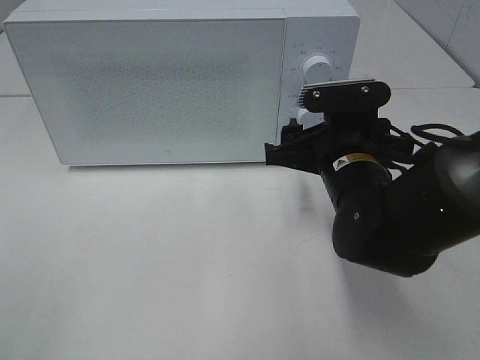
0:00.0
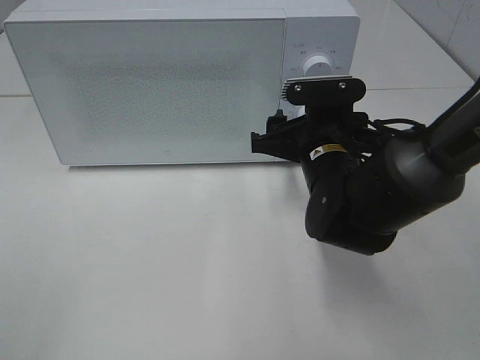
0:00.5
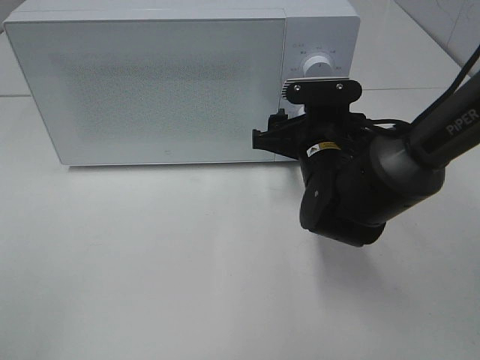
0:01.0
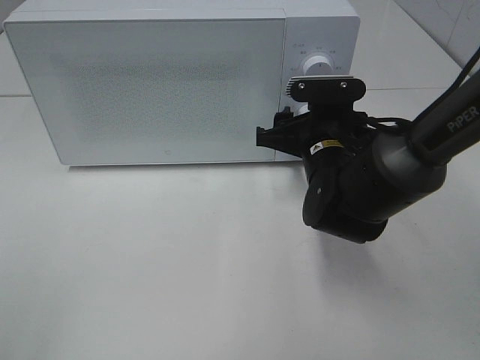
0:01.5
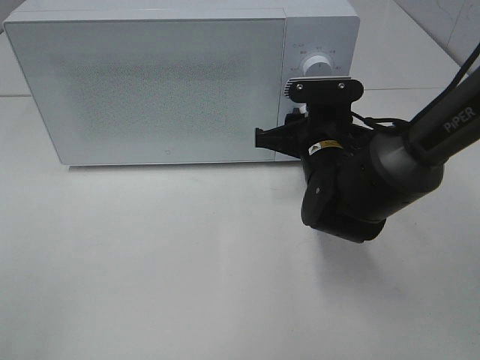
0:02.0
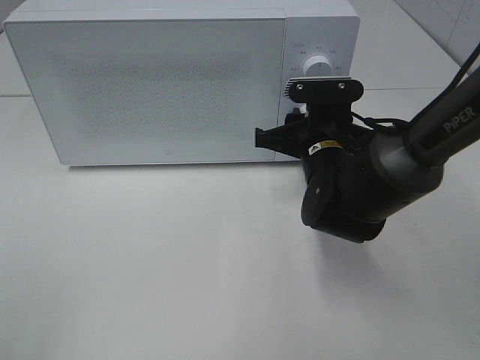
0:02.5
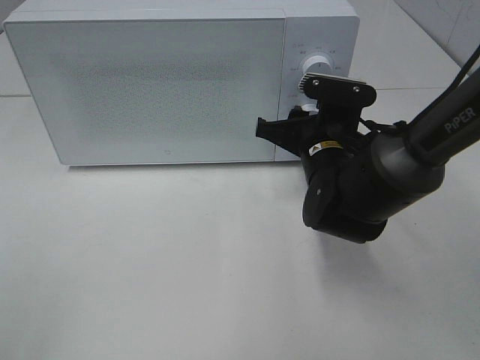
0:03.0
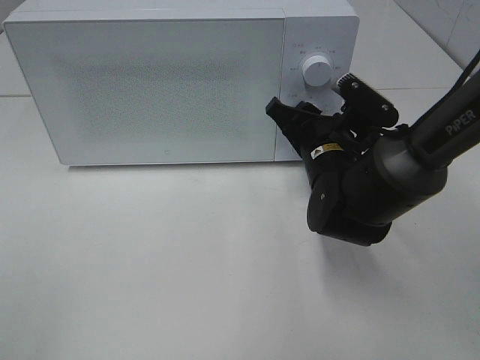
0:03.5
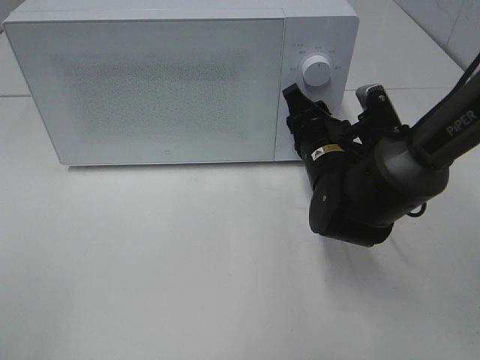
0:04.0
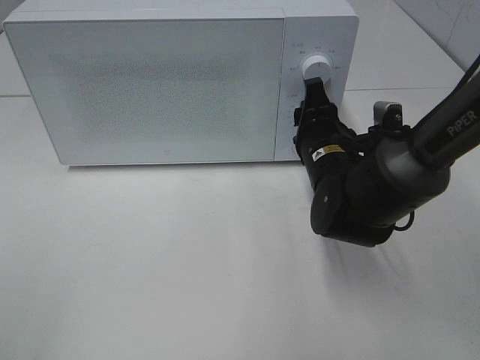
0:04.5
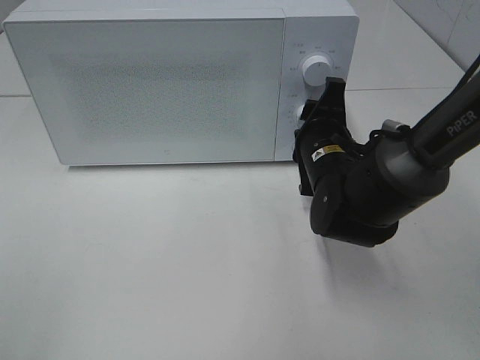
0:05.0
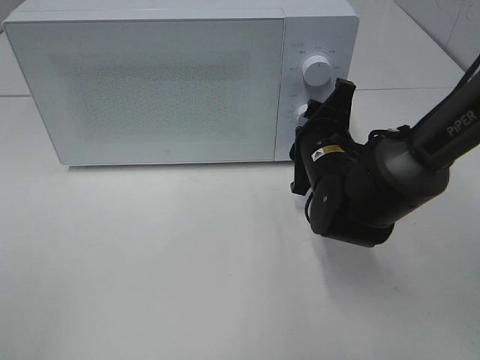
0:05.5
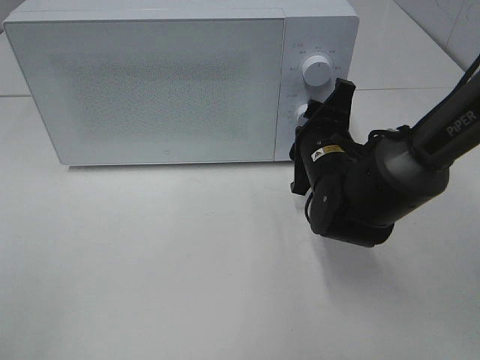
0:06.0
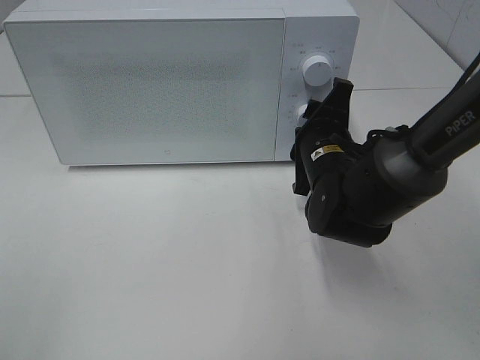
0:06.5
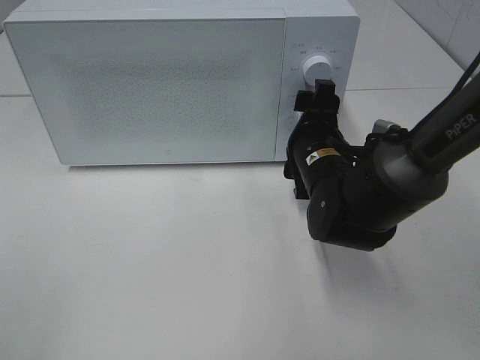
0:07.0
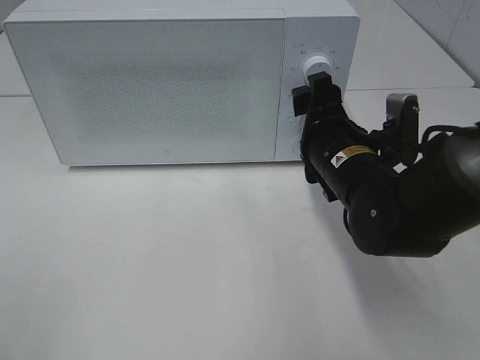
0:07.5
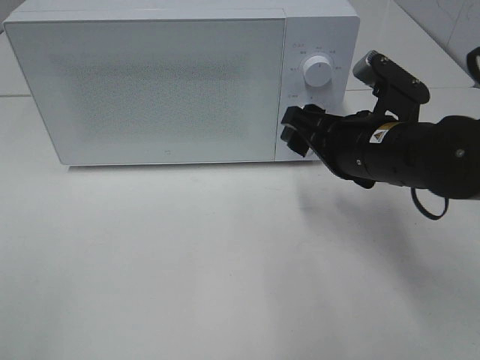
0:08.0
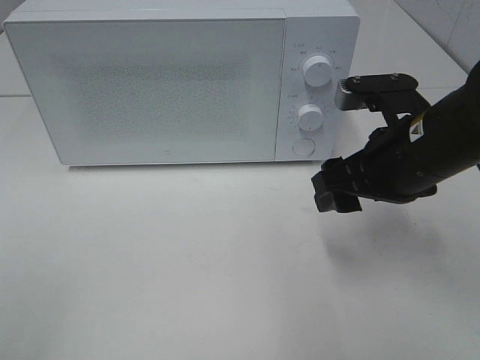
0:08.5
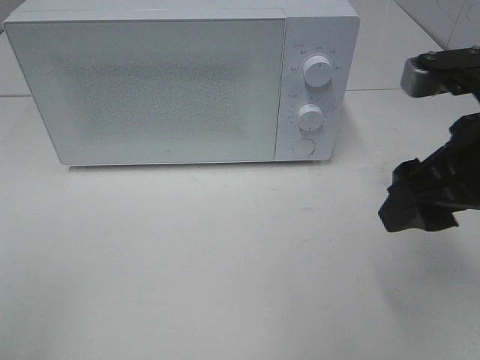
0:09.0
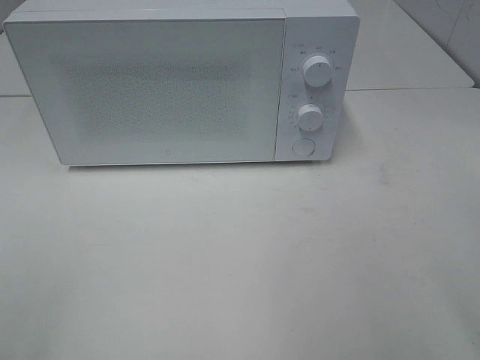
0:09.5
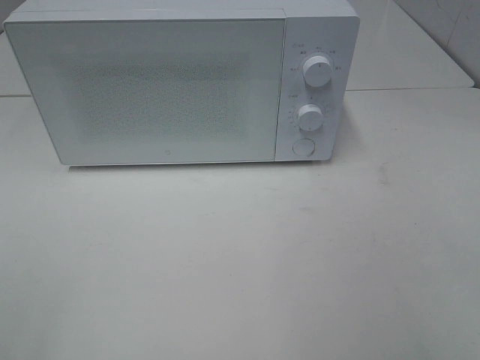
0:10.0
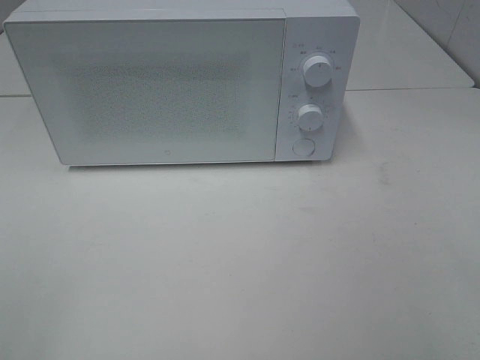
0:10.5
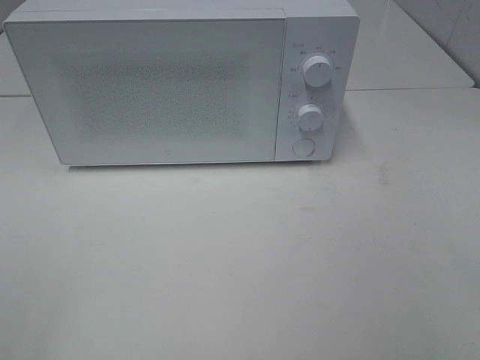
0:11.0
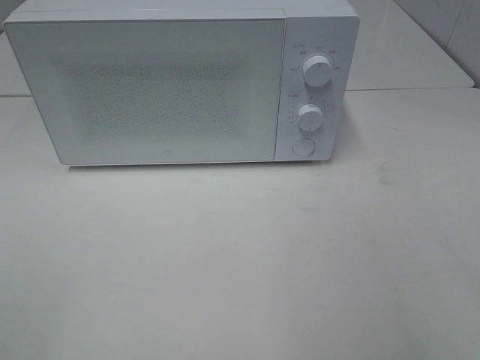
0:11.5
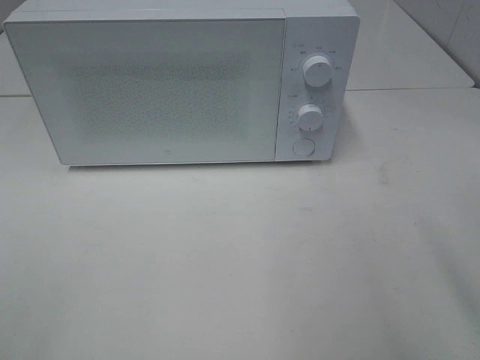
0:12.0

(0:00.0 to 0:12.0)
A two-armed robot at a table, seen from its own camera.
Task of the whole recording: Heat the burger.
Step, 0:00.0 - 0:06.5: Right hand: twist timer button.
0:00.0 - 0:02.0: The right gripper heads forward, covering approximately 5 cm, and closes its fingers.
0:06.0 - 0:08.0: The right gripper shifts about 10 cm upward and backward.
0:08.0 - 0:10.0: The right gripper shifts approximately 30 cm backward, to the right and upward.

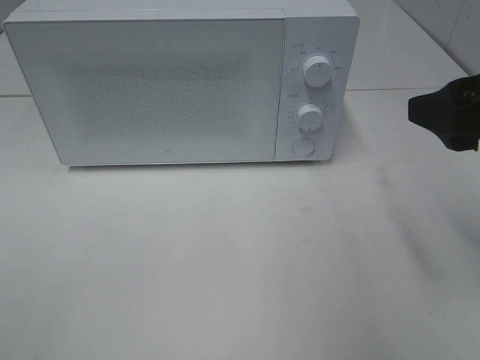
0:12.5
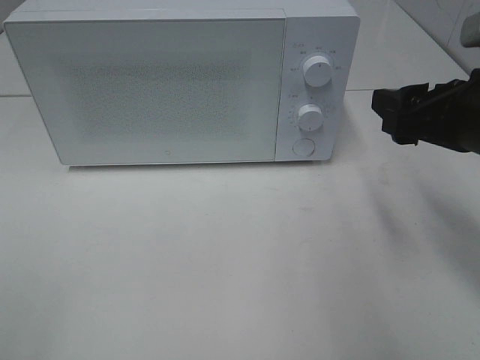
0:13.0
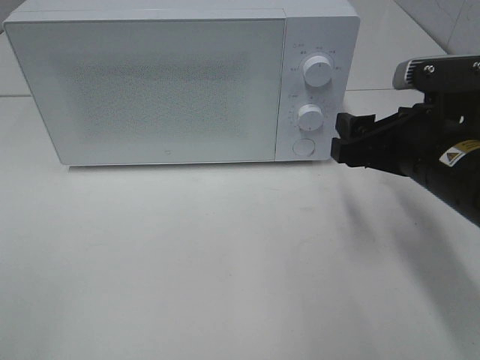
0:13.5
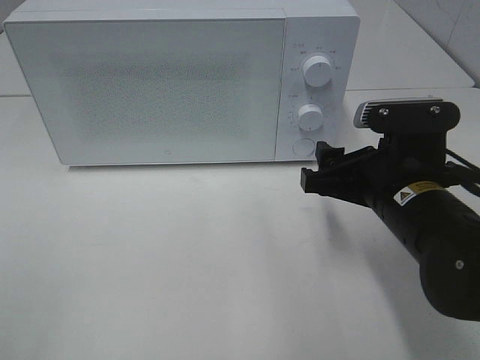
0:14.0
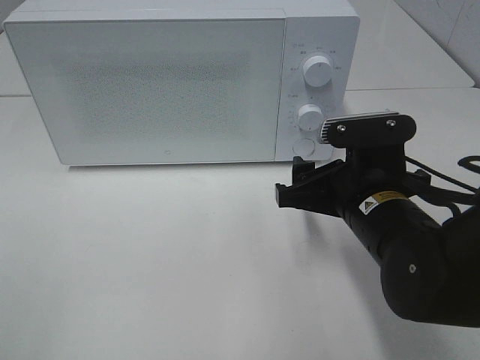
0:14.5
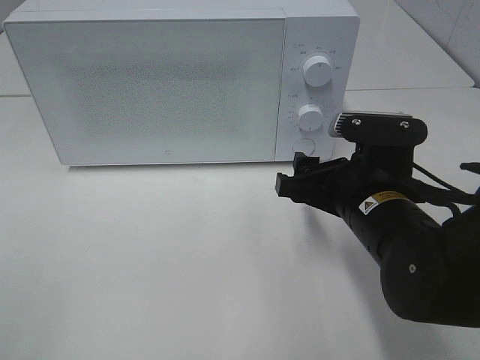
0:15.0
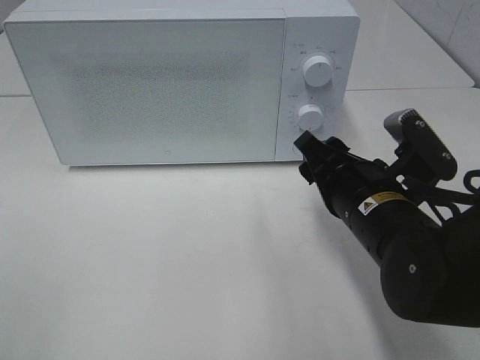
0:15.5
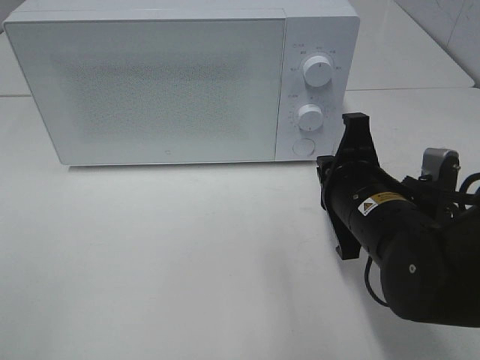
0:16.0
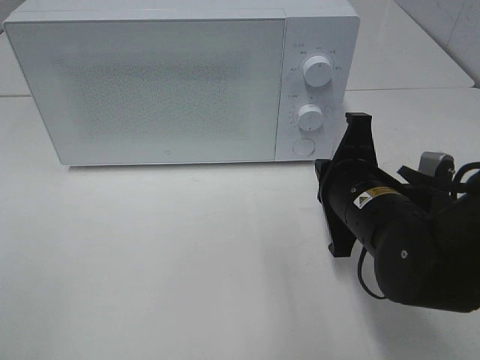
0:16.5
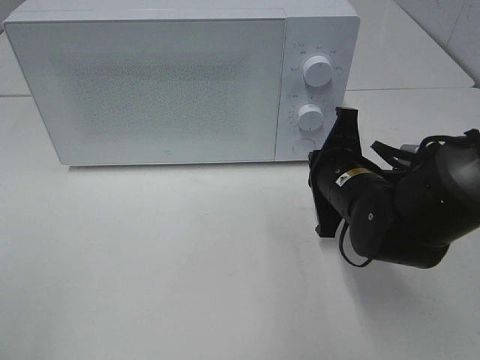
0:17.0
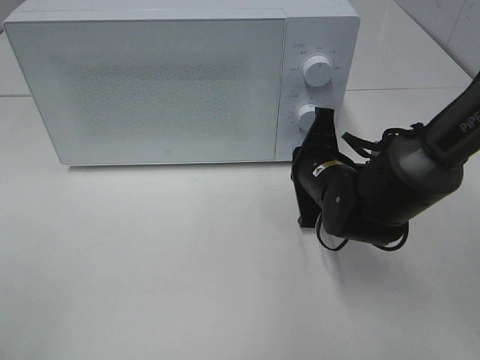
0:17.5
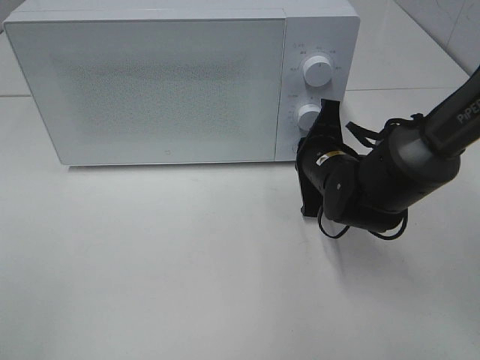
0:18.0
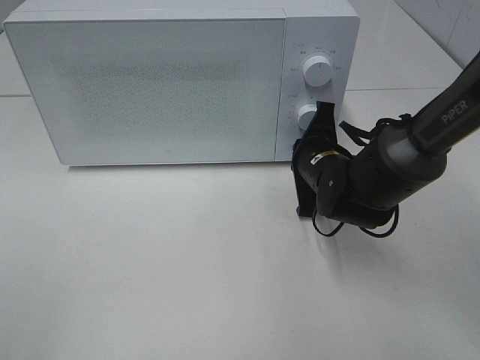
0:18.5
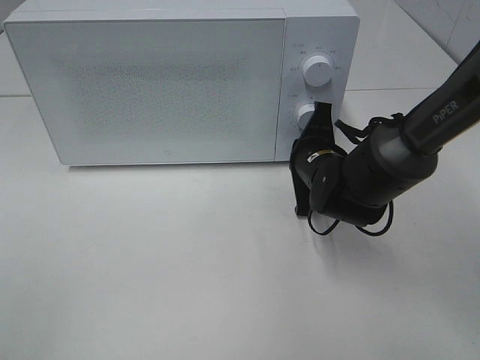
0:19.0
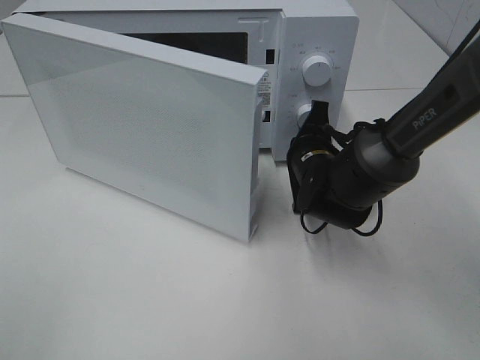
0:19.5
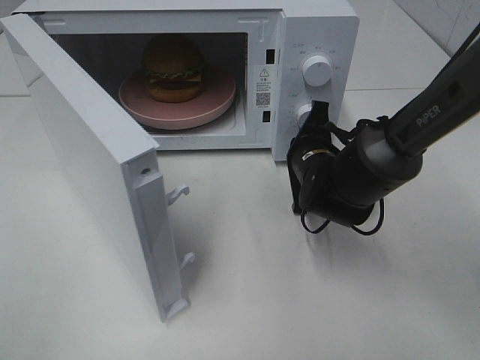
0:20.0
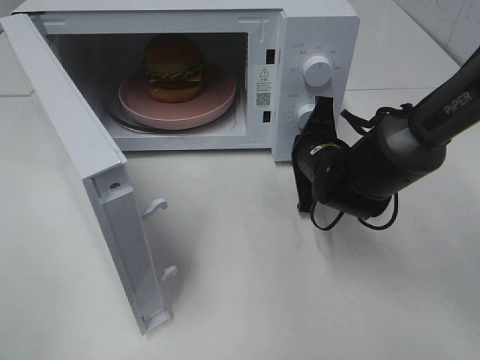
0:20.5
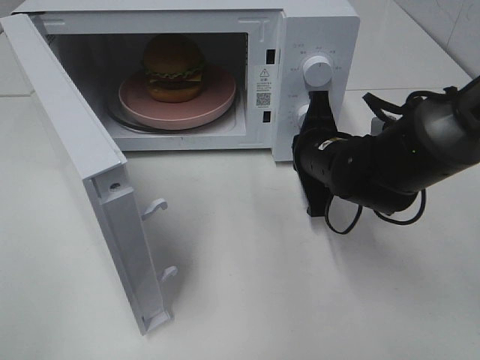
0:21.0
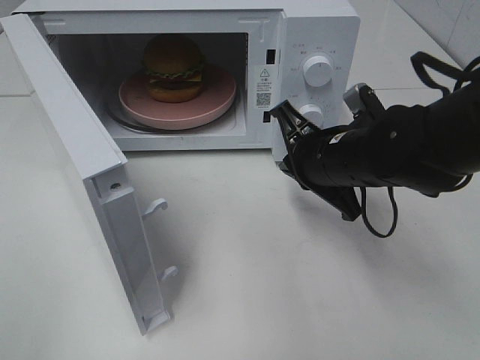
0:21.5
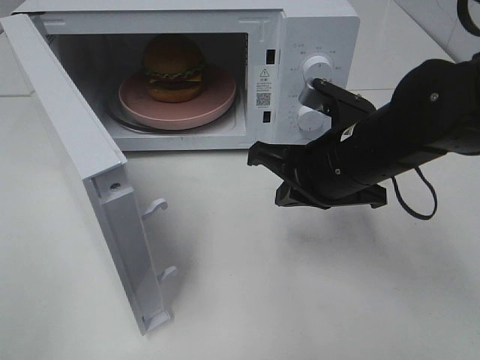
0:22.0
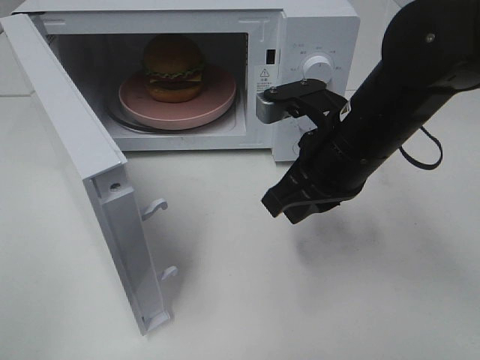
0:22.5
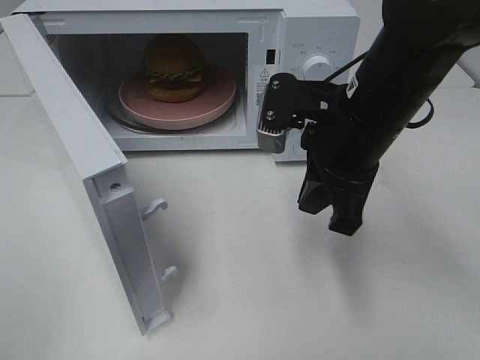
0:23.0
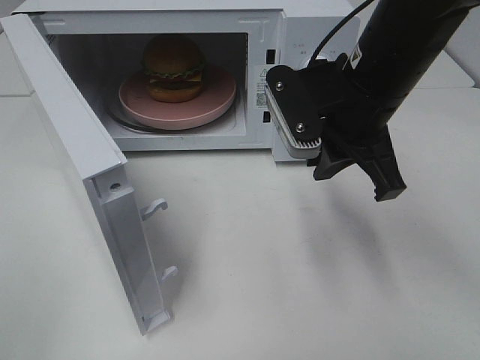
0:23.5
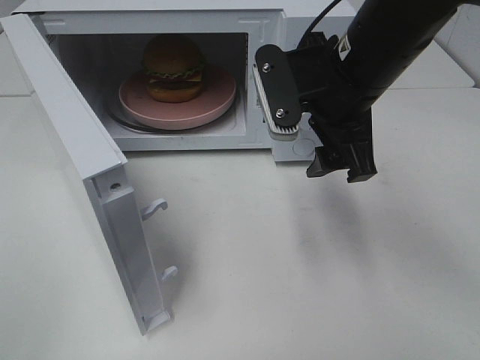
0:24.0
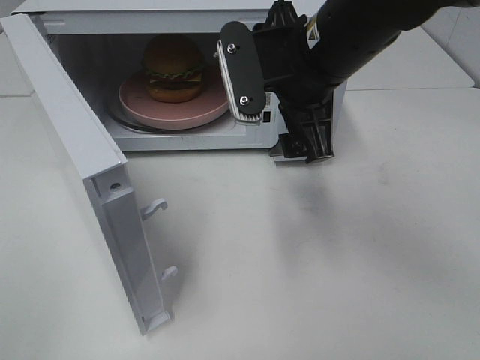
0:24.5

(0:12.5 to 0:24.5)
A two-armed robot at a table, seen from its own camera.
Task of the whole recording: Heat the burger.
Step, 0:12.5 - 0:21.0: Right hand: press the switch.
0:12.5 - 0:14.5: The right gripper shifts roughly 15 cm downward and to the left.
0:14.5 - 0:16.5: The right gripper closes.
0:16.5 - 0:18.5: The right gripper travels forward by about 10 cm.
0:20.5 - 0:22.5: The right gripper heads upward and backward, covering approximately 15 cm.
0:22.5 - 0:24.5: The right gripper moves upward, some 5 cm, and opens.

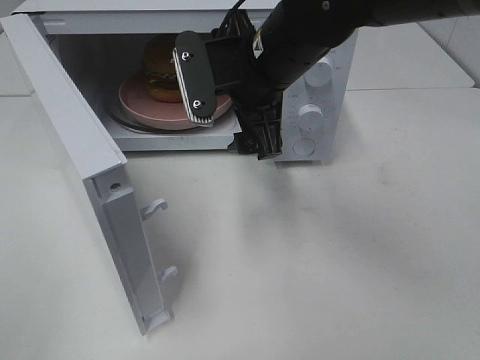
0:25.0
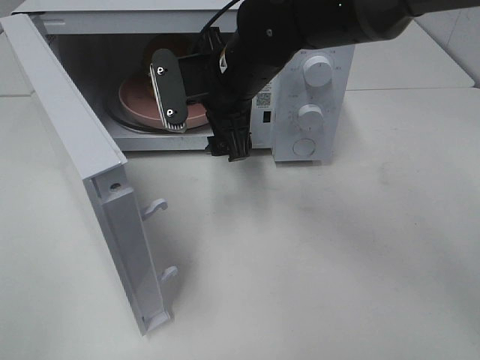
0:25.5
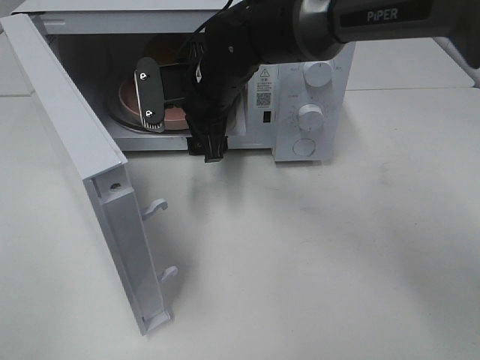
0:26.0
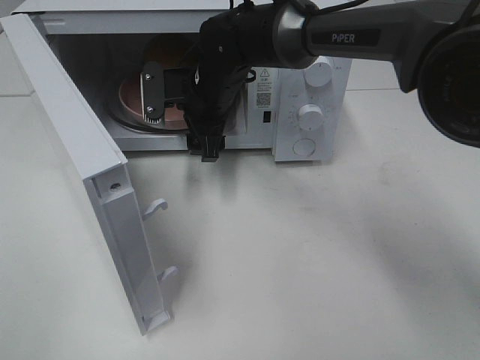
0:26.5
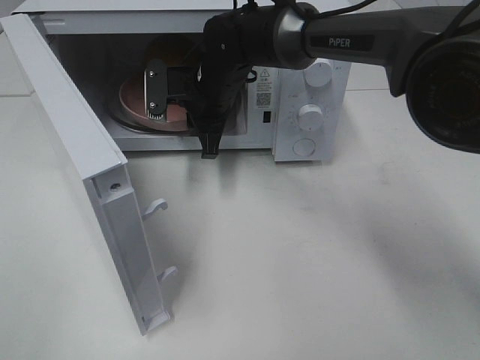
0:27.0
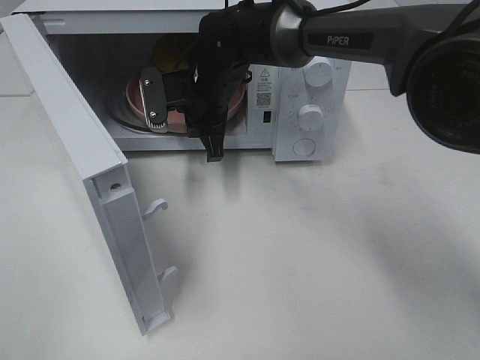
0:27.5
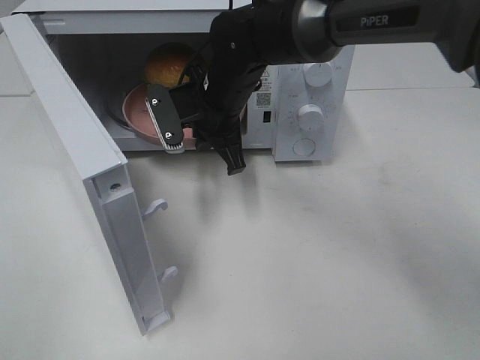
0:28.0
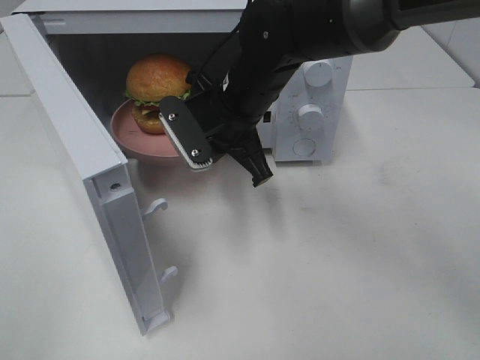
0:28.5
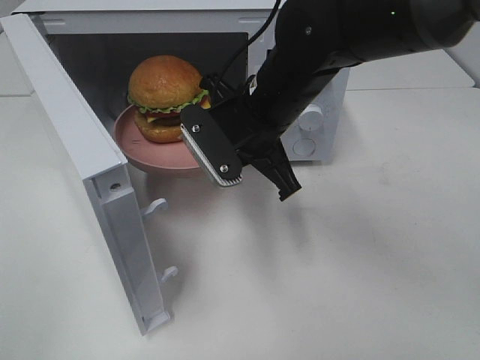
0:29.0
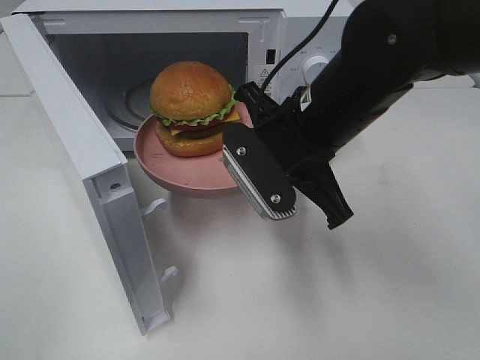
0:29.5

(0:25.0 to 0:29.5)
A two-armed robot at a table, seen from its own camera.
Task of the whole recording: Heat the burger.
Step, 0:25.0 - 0:27.0: Right hand: grab the plate with the hamburger.
0:25.0 - 0:27.0: The right gripper travels forward, downward and to the left by approximately 15 cm, and closes its fingers.
0:27.0 - 0:29.5: The right gripper heads backward and to the right, covering approximately 20 cm.
